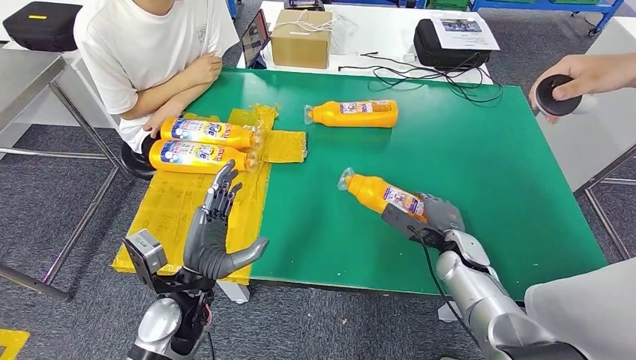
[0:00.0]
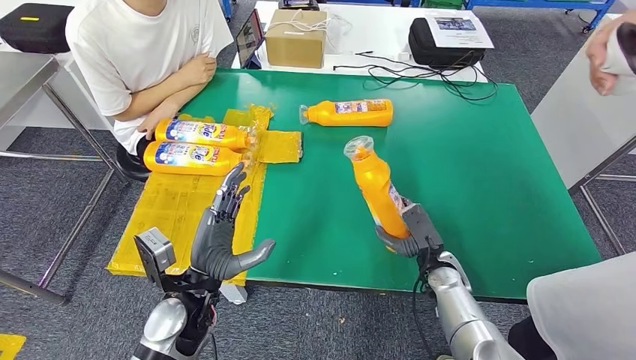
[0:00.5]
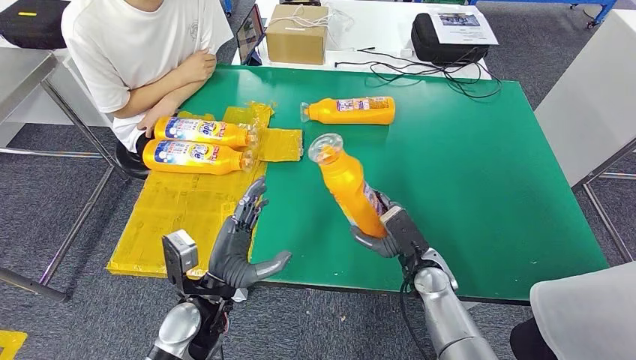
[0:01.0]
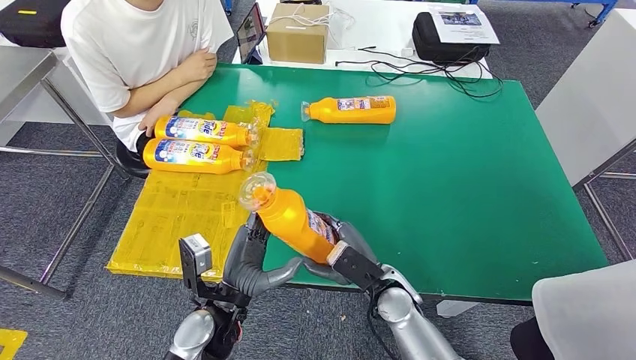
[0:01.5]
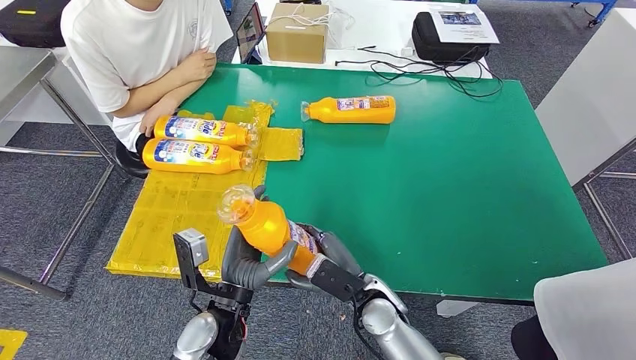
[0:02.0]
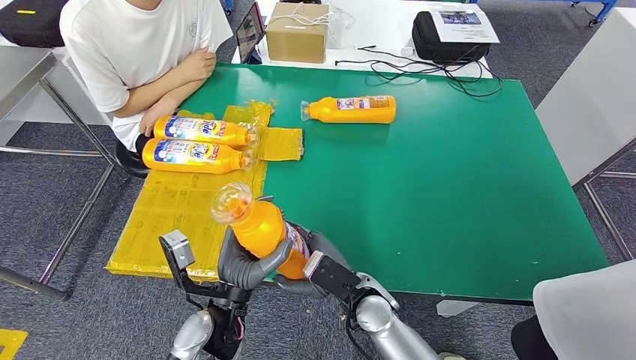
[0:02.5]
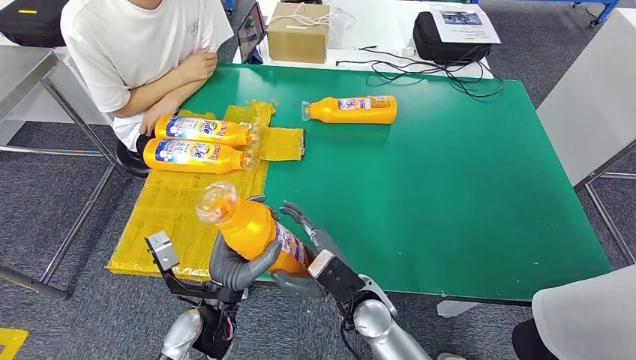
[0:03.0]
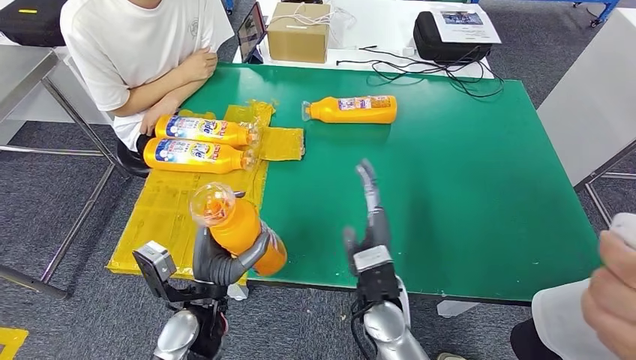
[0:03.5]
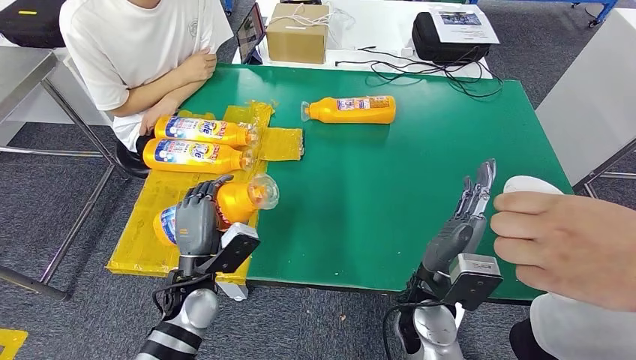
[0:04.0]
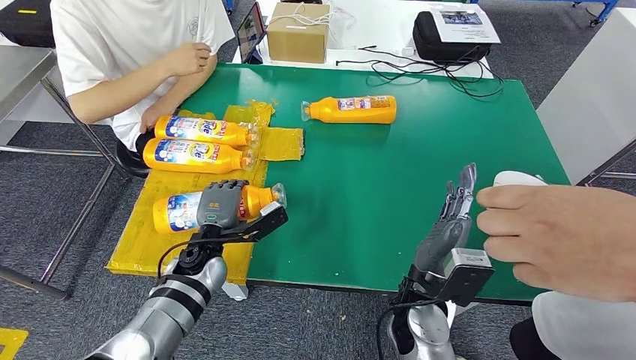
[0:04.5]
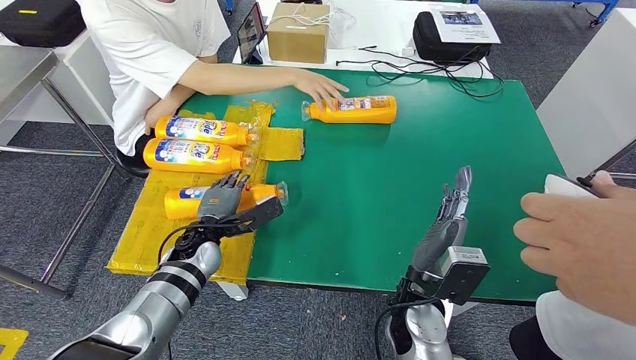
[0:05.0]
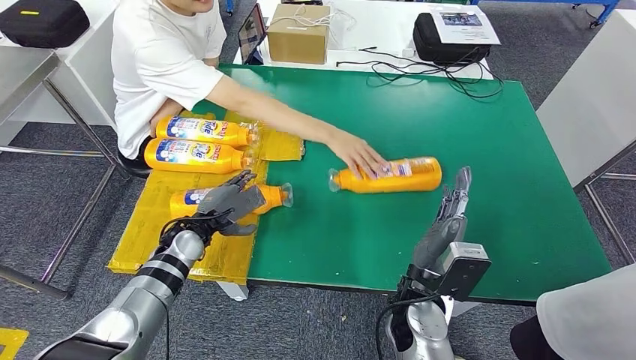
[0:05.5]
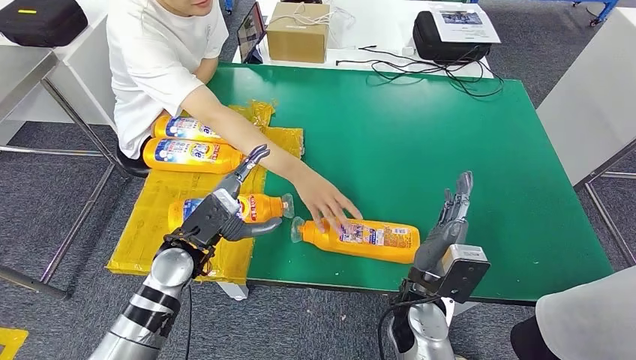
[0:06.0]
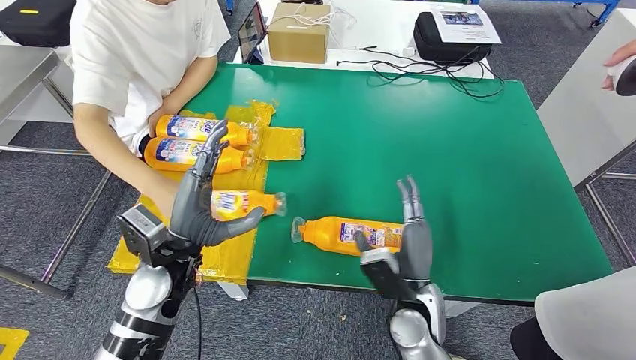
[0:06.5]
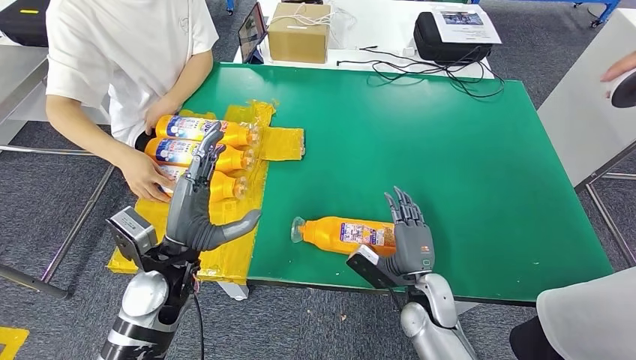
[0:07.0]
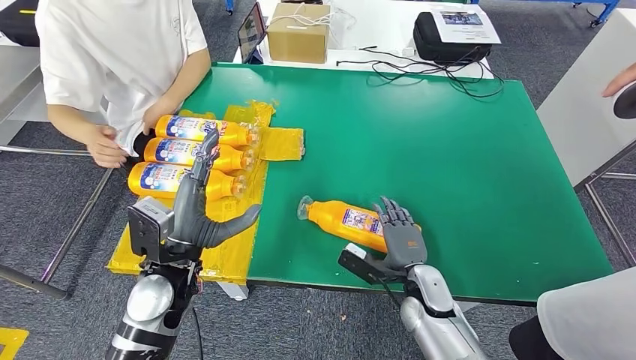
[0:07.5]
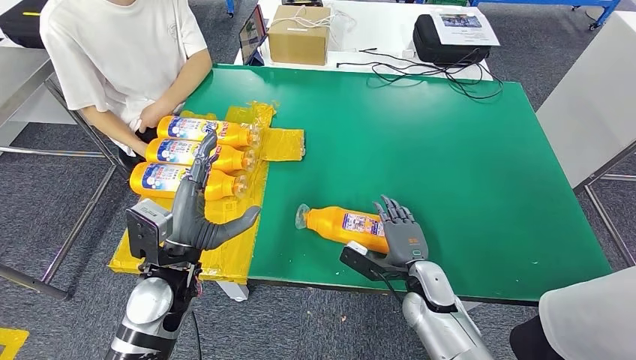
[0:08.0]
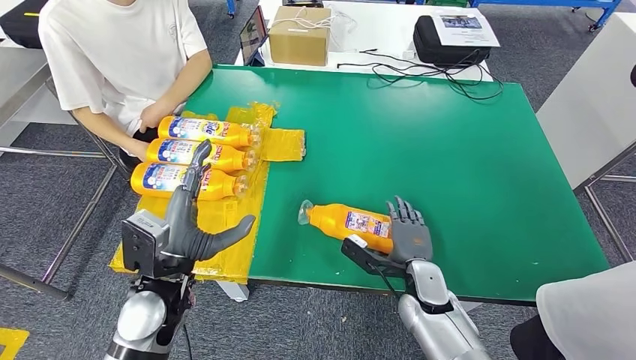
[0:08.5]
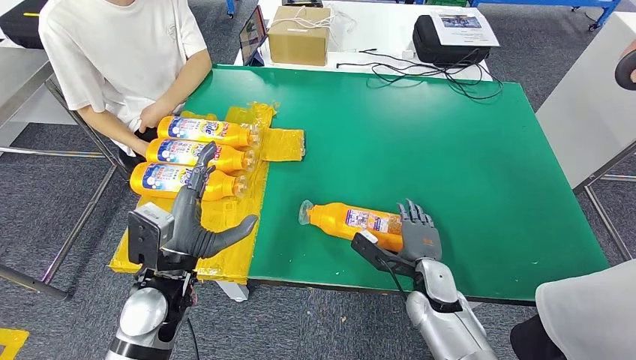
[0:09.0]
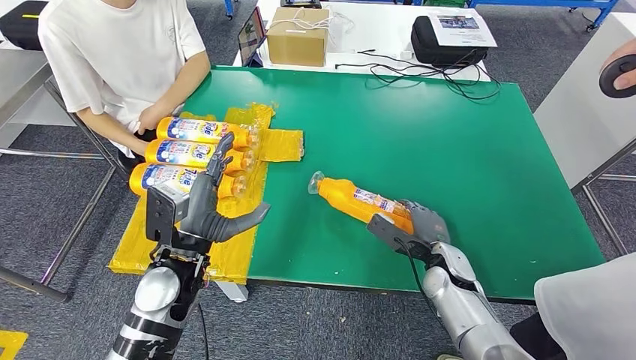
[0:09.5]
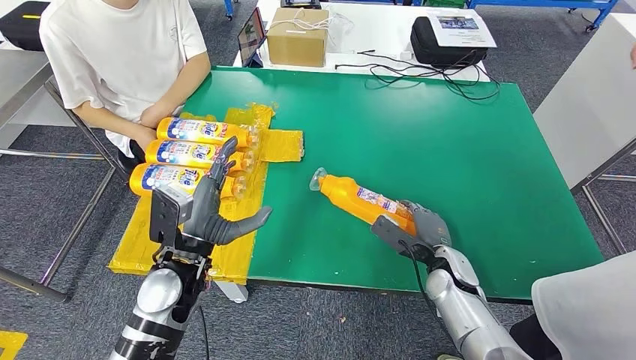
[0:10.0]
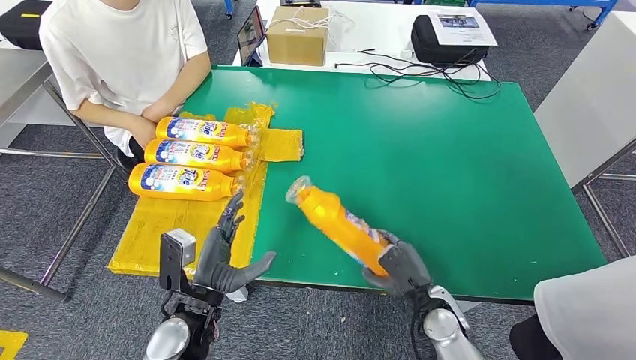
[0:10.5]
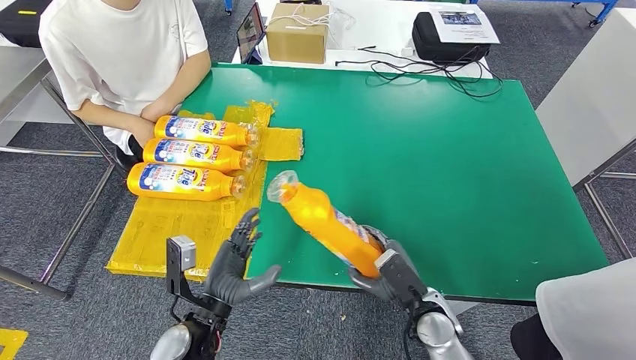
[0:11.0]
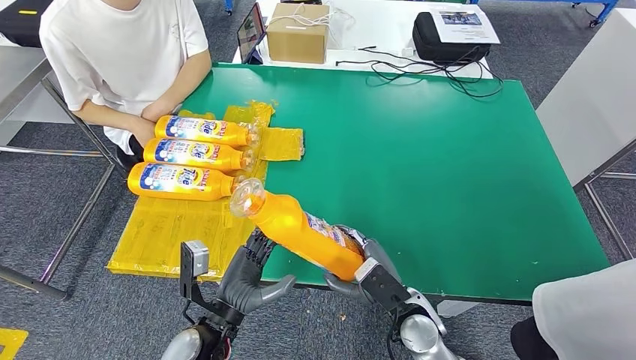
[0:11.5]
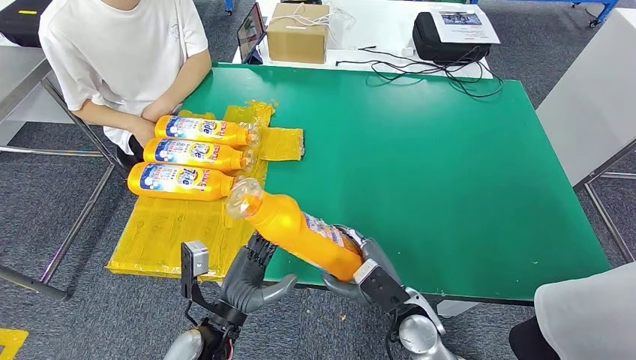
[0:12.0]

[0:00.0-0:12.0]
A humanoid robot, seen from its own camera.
Step, 0:02.0 to 0:07.0: Flip the fast-moving consumer goods bottle to the front side.
Step, 0:07.5 to 0:10.5: Pick up the fast-moving consumer goods bottle from the table.

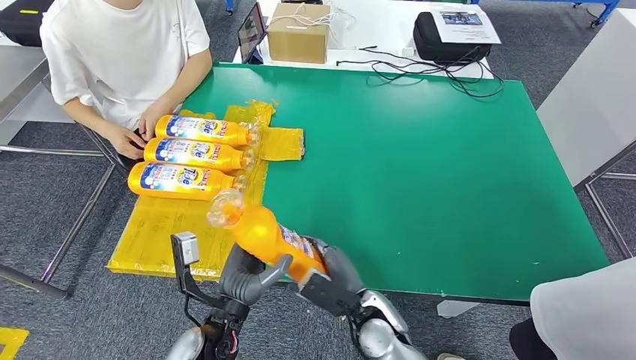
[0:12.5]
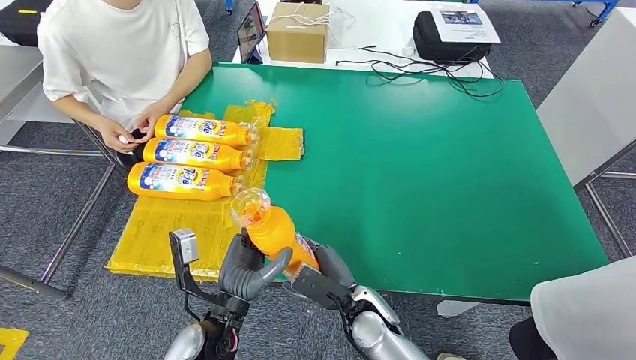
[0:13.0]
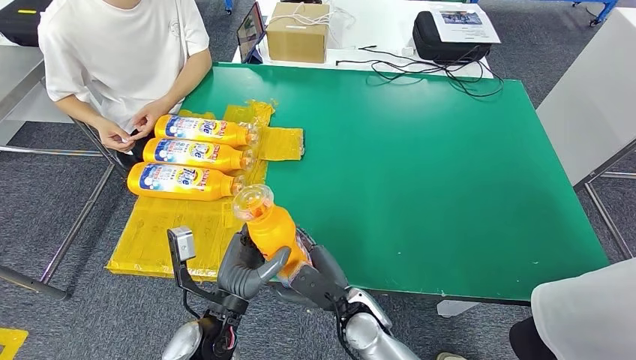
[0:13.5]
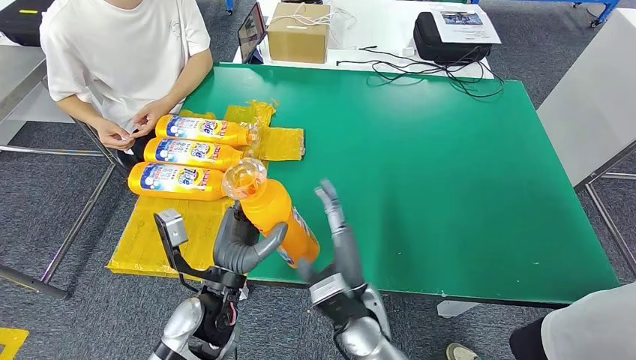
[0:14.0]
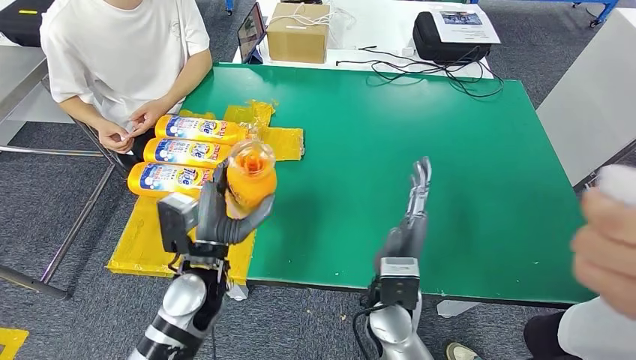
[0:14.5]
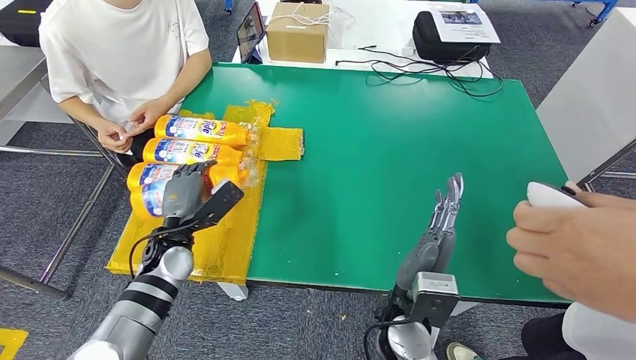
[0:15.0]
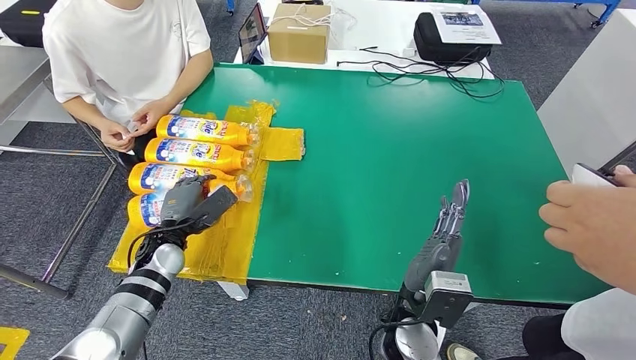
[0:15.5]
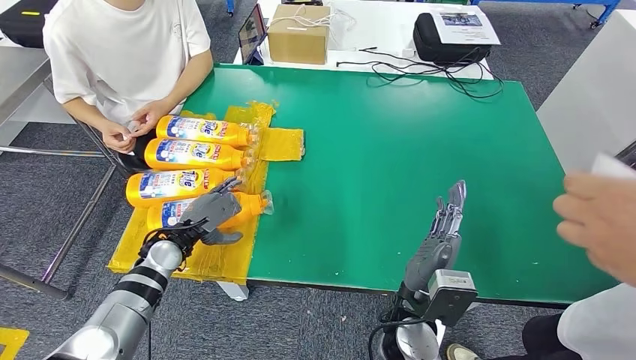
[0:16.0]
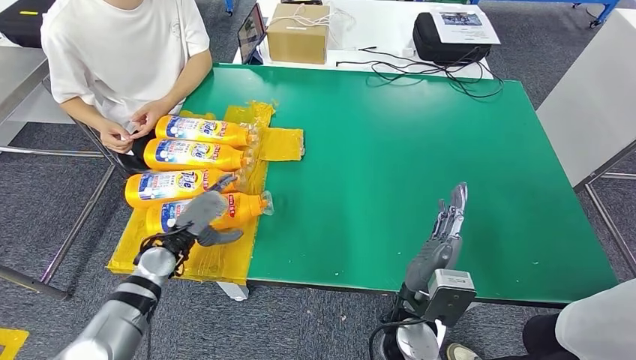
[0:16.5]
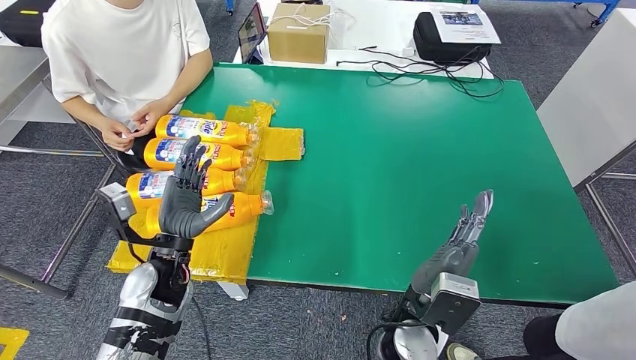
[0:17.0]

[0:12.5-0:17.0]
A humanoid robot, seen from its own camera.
Step, 0:12.5 to 0:17.0: Flip the fast-moving consumer goods bottle to the front side.
0:12.5 to 0:14.5: The left hand heads forward, covering some 10 cm. The right hand is displaced upward by approximately 10 cm.
0:14.5 to 0:17.0: The left hand shifts some 5 cm to the left.
